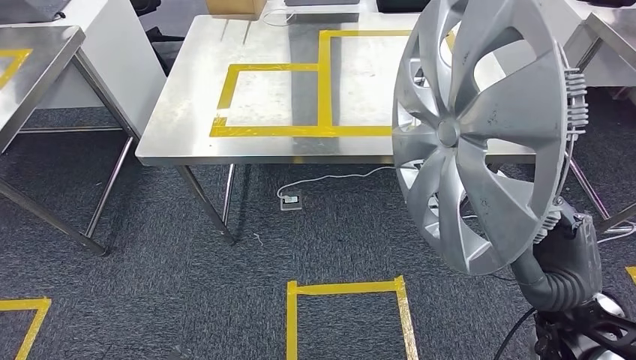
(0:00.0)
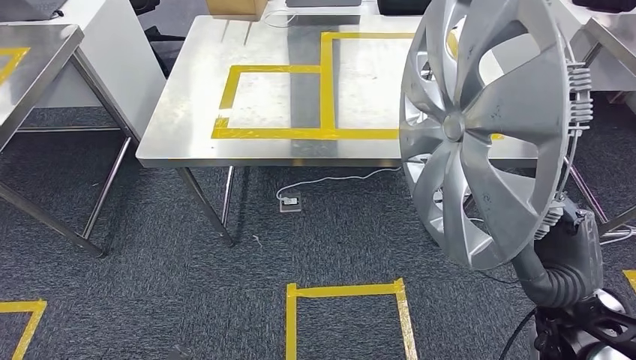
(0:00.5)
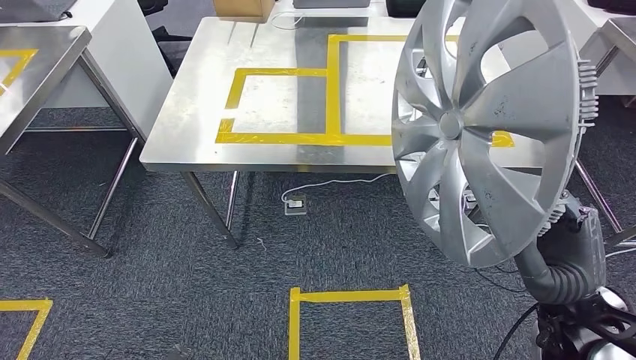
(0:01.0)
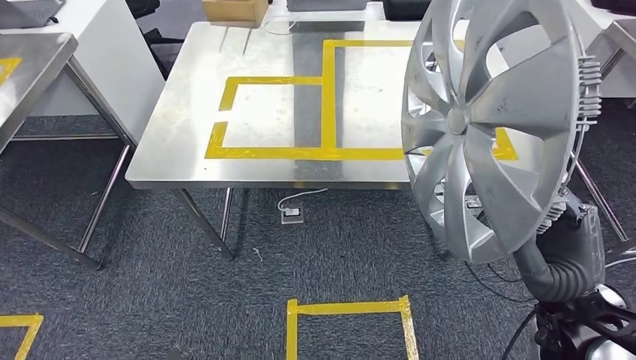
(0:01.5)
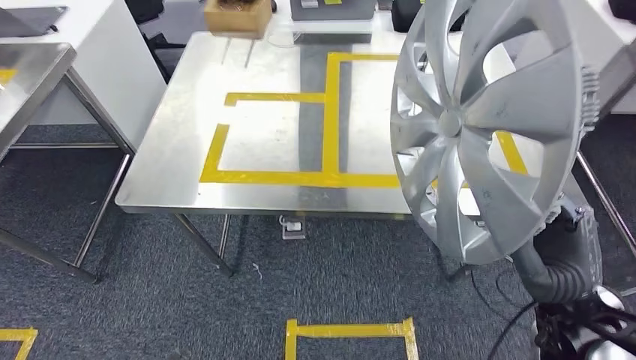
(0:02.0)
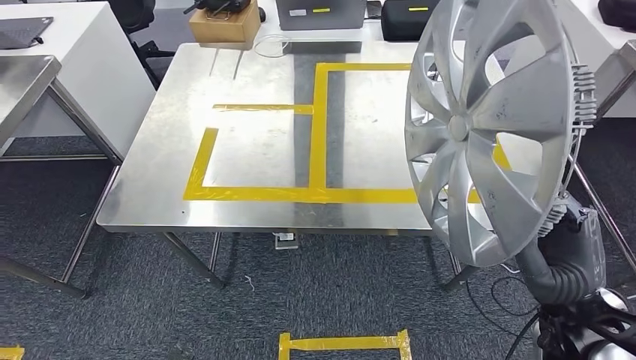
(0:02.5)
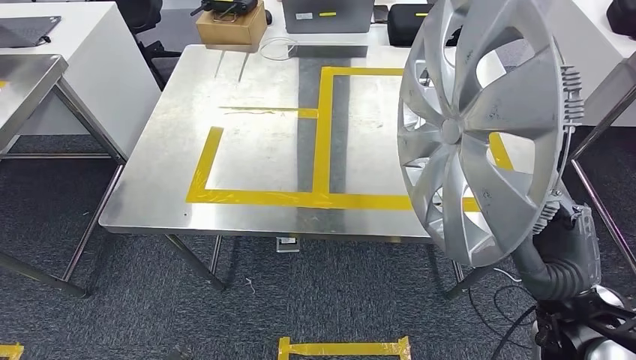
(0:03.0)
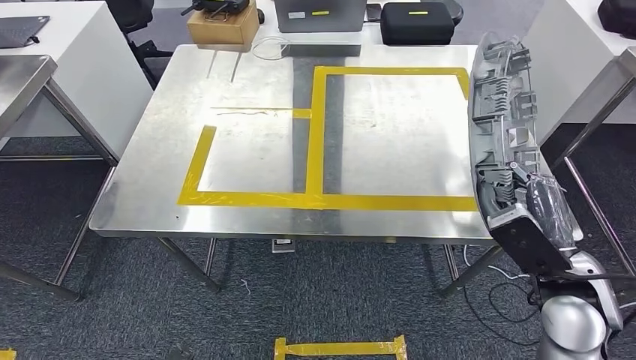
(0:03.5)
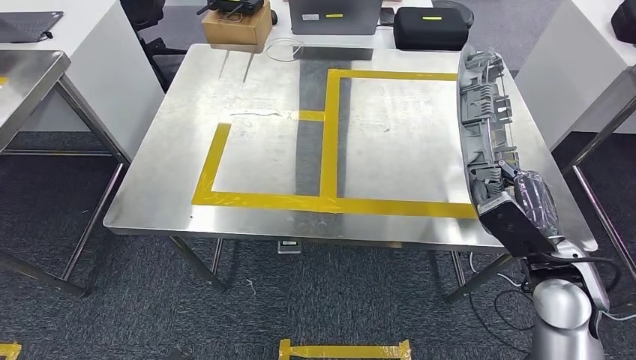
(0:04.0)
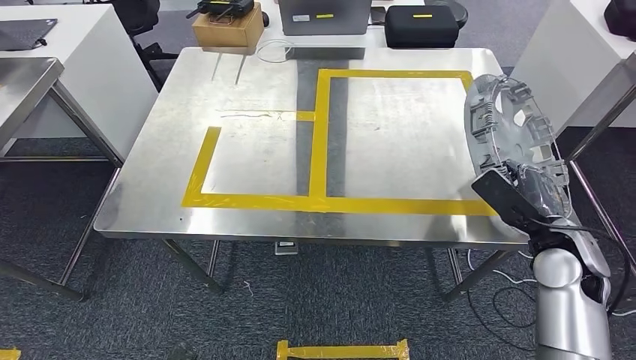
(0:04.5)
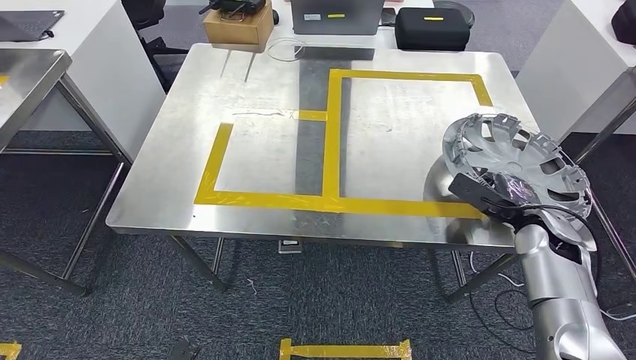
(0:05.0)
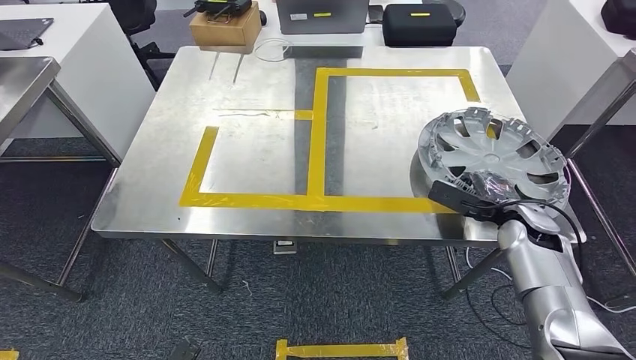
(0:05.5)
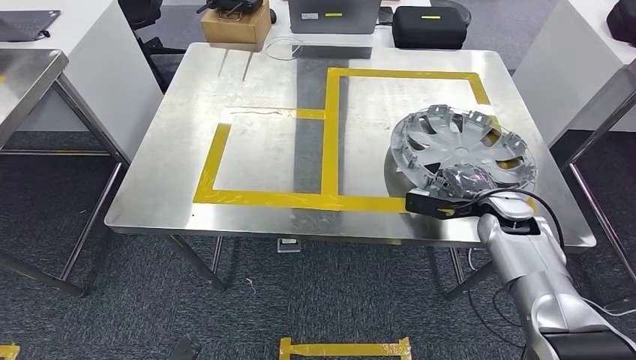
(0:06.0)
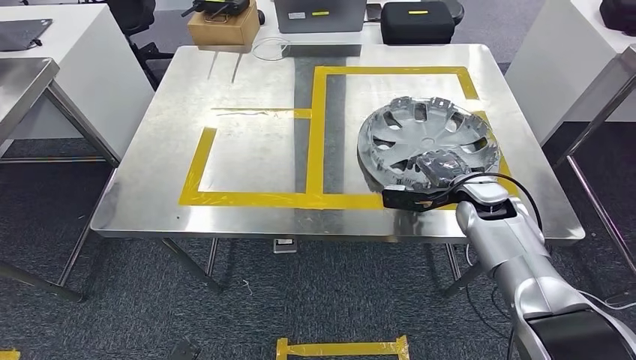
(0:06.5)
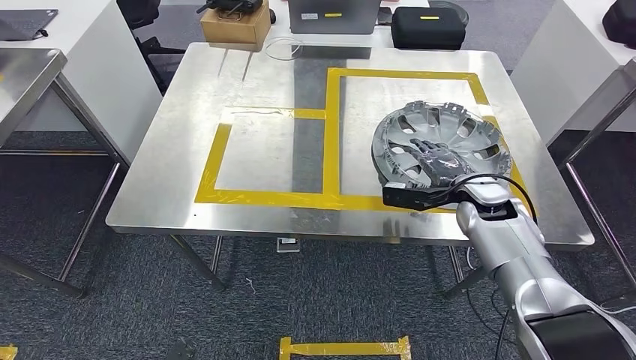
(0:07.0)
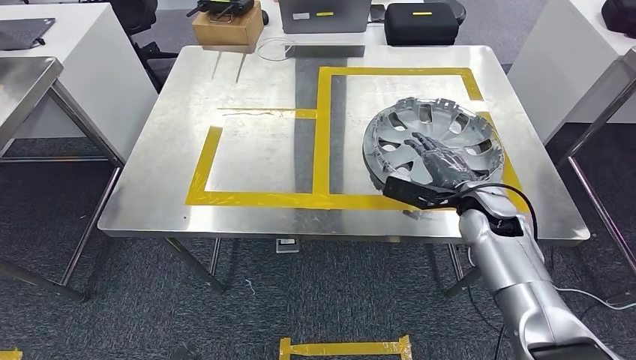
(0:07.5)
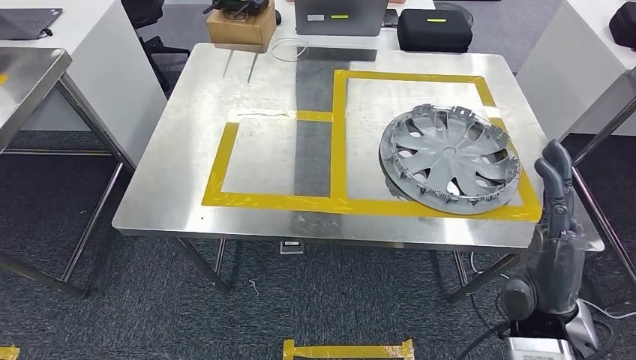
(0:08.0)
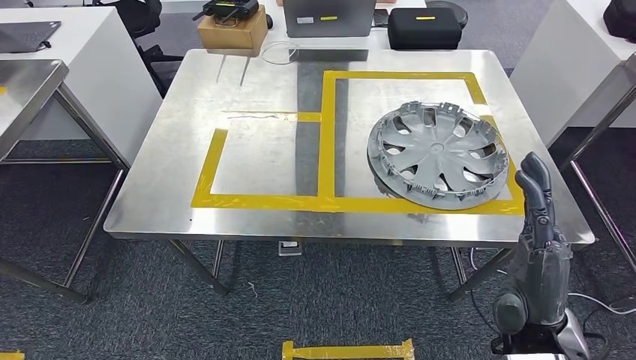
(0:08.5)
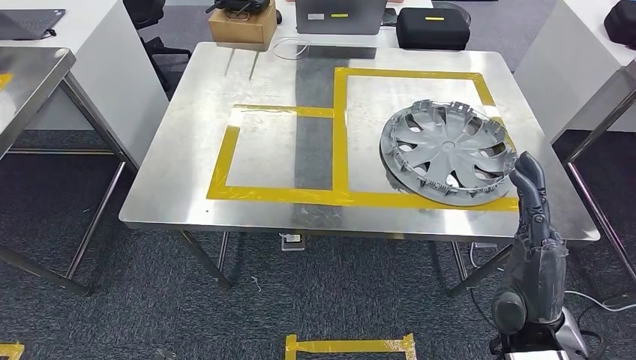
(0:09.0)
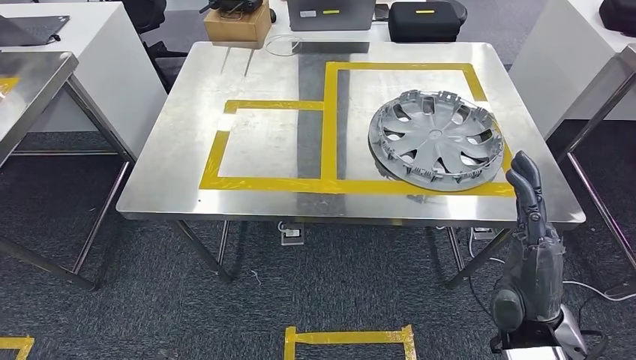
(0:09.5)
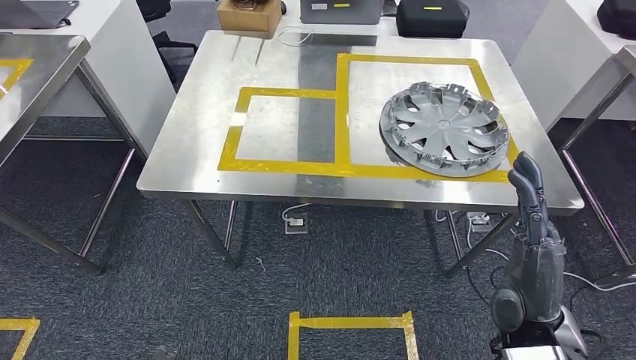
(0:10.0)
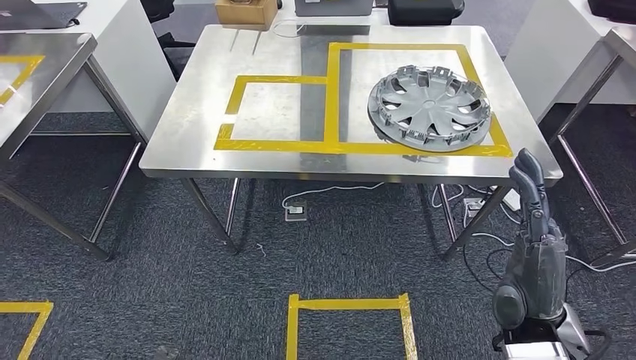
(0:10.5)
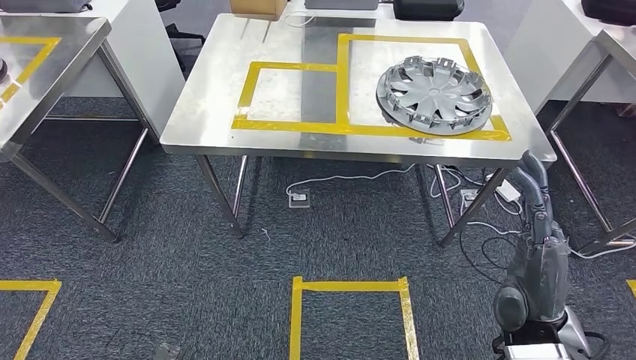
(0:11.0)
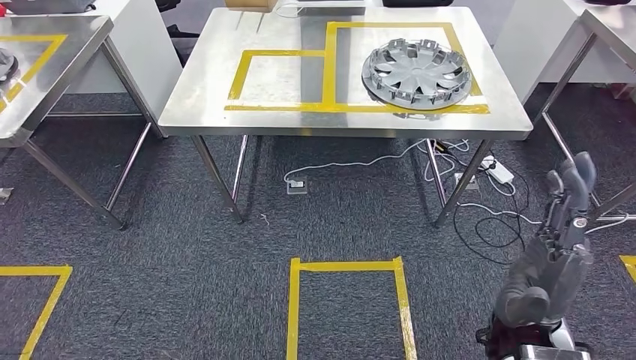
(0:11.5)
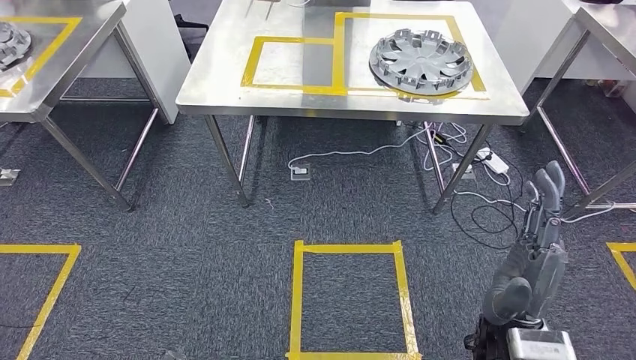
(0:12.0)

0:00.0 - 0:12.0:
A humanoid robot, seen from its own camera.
Step, 0:00.0 - 0:04.0: Move the small component to the workbench.
Step, 0:04.5 - 0:08.5: Insert the small component into the corresponding slot on the workbench.
0:04.0 - 0:06.0: The right hand moves forward and downward, about 15 cm.

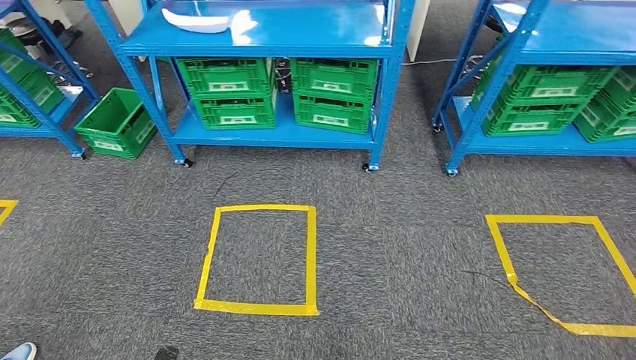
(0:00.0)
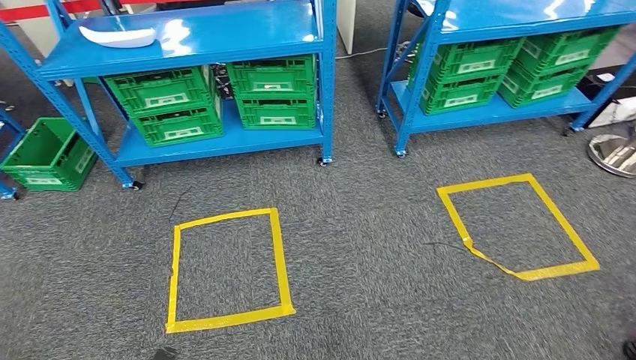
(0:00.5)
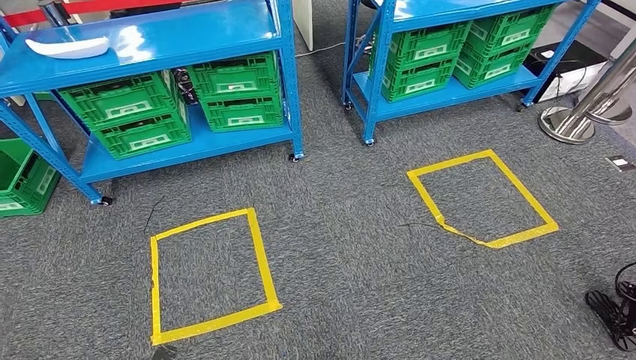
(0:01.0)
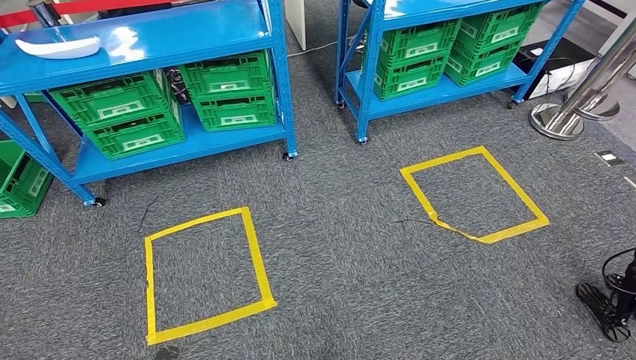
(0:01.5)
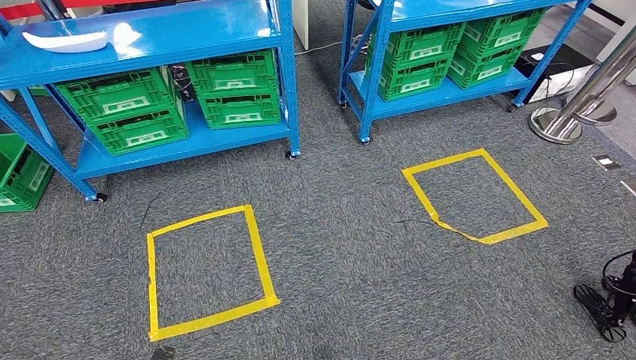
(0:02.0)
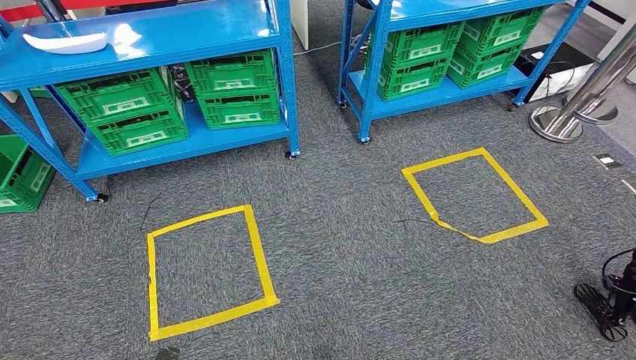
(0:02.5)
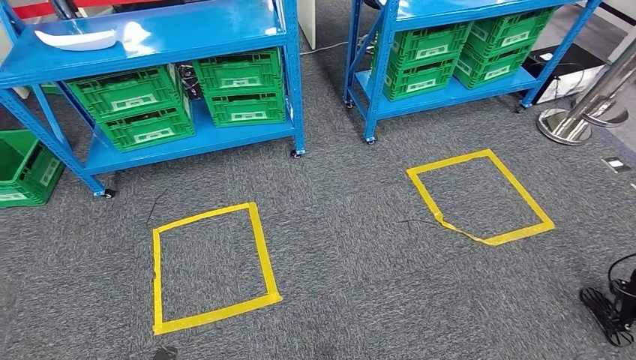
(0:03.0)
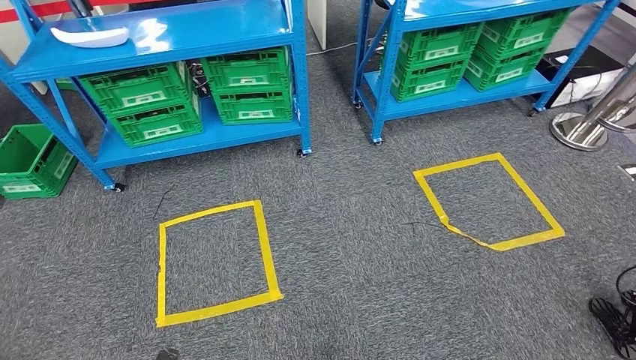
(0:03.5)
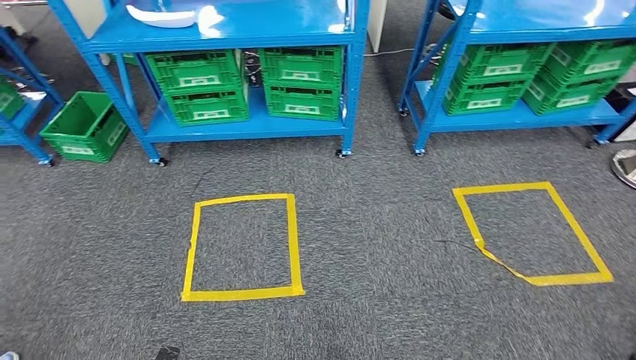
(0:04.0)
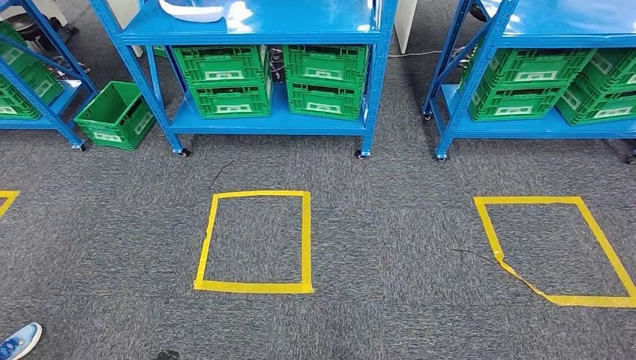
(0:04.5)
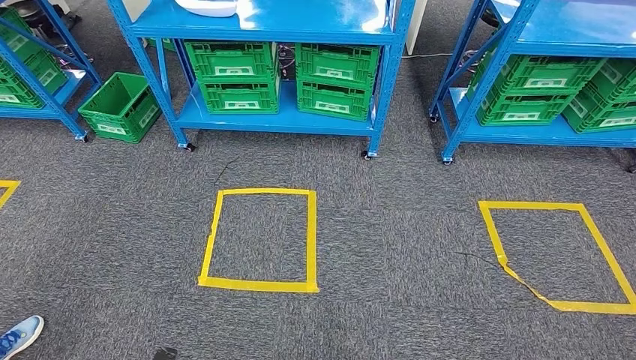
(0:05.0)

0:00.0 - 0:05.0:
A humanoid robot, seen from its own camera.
Step, 0:00.0 - 0:04.5: Move to the initial position at the workbench.
